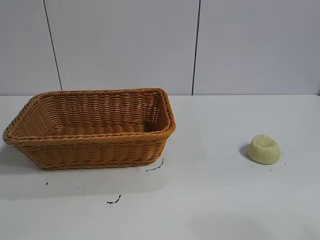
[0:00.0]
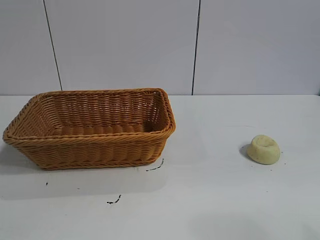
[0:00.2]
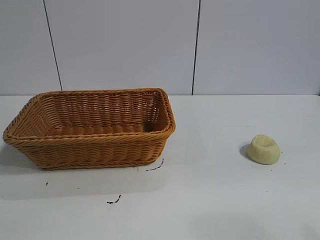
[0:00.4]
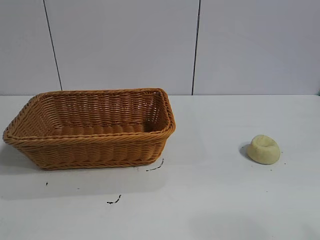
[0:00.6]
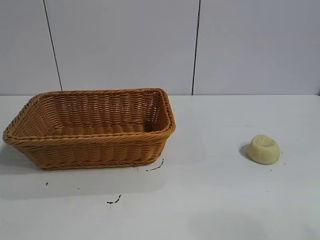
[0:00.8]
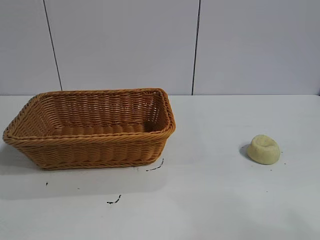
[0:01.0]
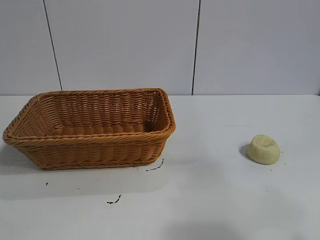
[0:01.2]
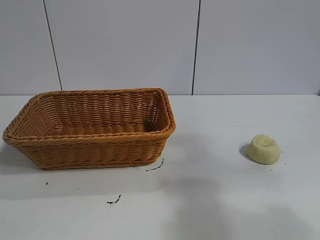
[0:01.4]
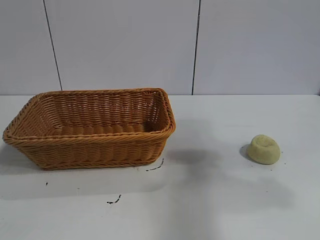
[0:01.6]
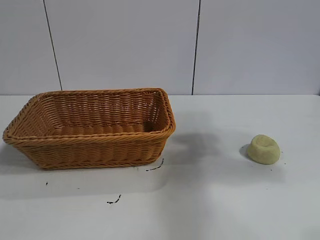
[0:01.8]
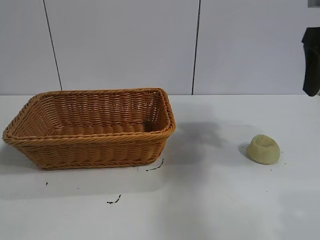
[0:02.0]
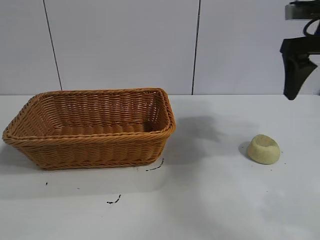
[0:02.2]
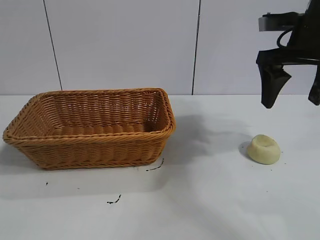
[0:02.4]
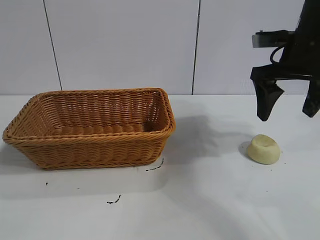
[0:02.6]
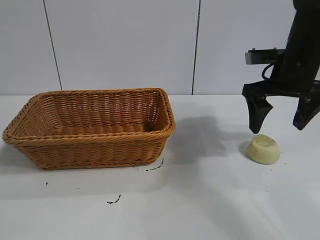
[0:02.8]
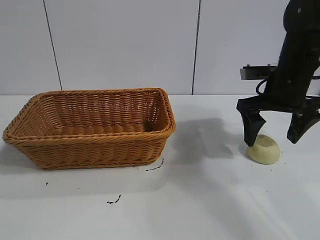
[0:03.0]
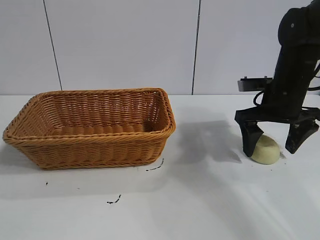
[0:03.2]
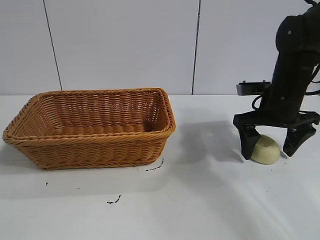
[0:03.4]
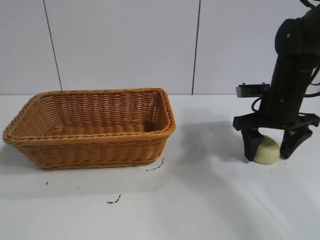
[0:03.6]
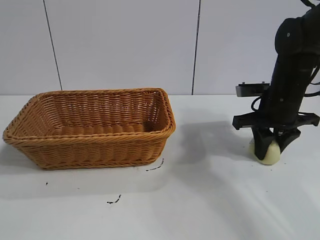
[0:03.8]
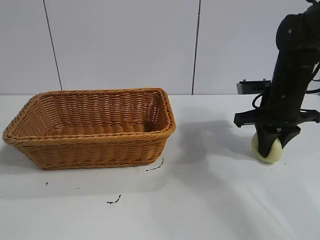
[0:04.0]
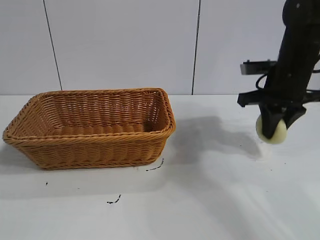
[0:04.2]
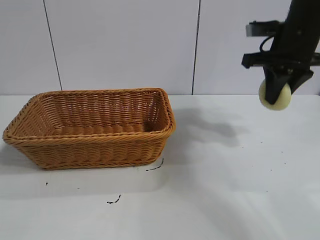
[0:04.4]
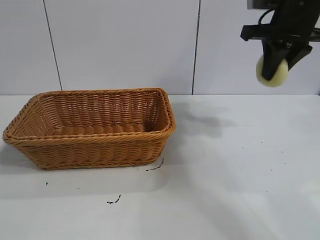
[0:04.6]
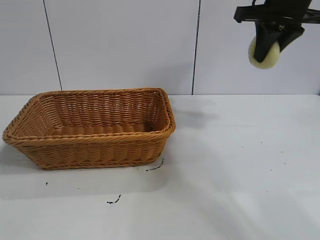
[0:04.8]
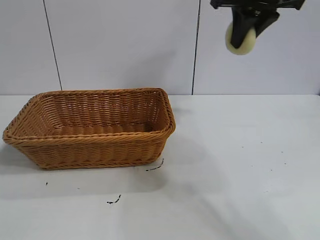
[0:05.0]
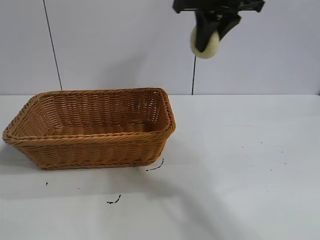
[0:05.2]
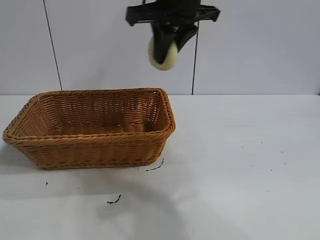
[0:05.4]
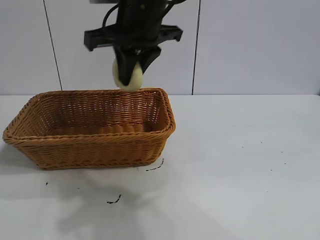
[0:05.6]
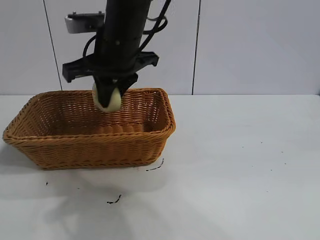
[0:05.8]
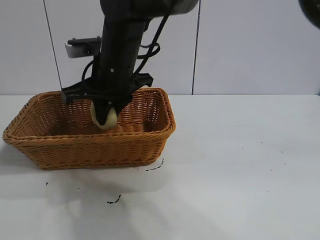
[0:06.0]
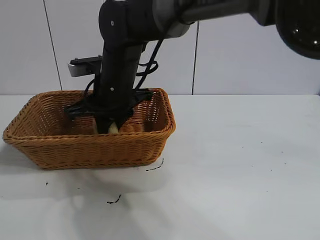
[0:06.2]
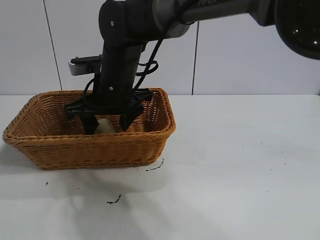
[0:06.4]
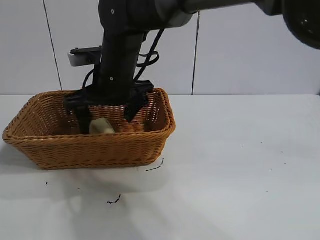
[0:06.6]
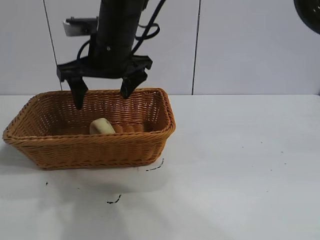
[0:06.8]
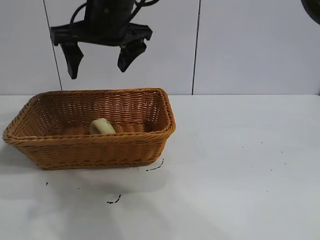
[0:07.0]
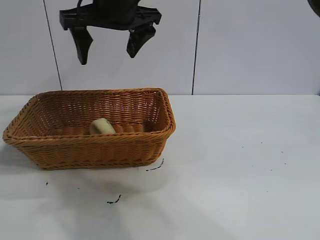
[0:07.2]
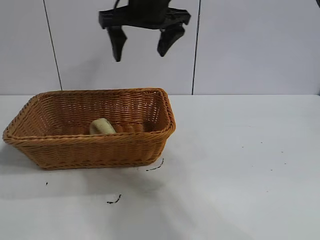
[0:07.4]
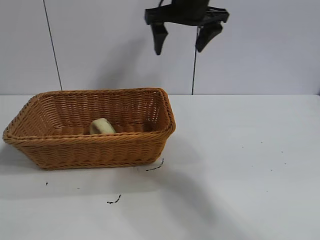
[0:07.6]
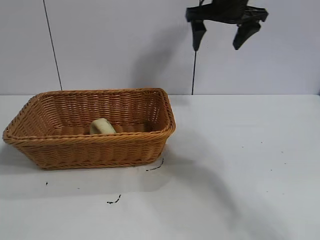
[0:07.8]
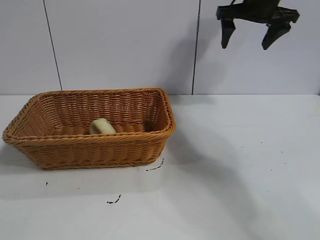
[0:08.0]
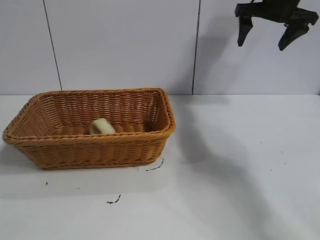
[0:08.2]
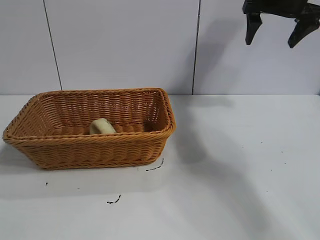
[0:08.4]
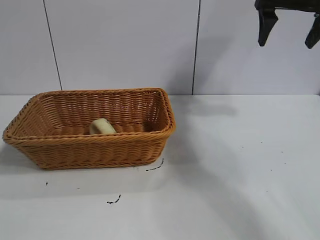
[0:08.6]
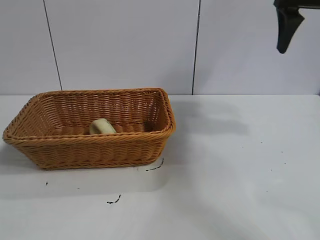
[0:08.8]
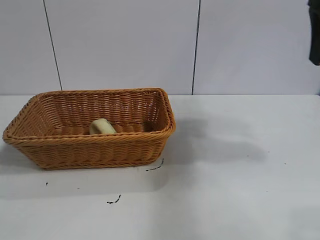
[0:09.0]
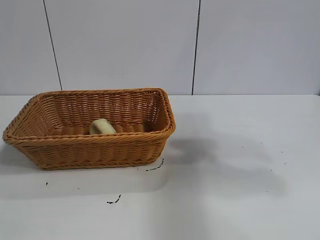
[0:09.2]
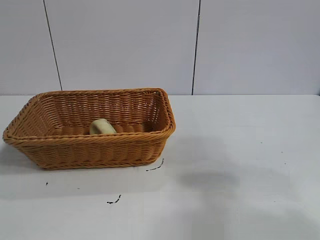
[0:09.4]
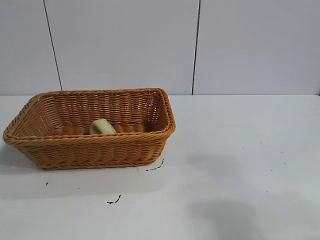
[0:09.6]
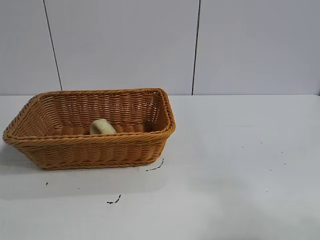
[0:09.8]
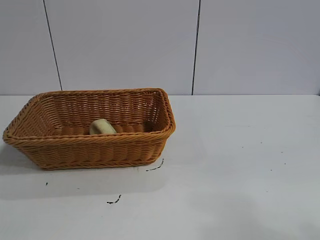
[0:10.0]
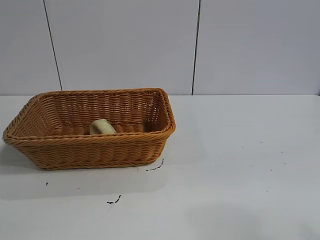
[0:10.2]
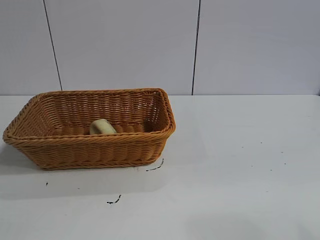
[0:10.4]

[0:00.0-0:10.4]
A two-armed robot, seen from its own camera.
Task of the whole recording: pick up the egg yolk pastry and put it into the basket.
Step, 0:00.8 to 0:03.8: Grasp egg yolk pastry with right gripper.
Step, 0:04.0 to 0:06.6: Place the egg yolk pastry in the basket with right gripper.
